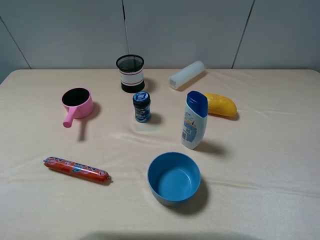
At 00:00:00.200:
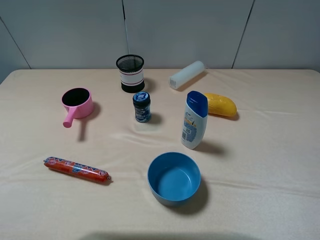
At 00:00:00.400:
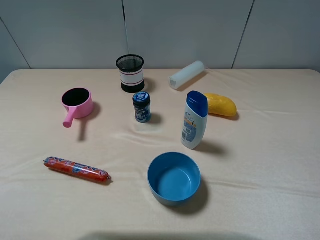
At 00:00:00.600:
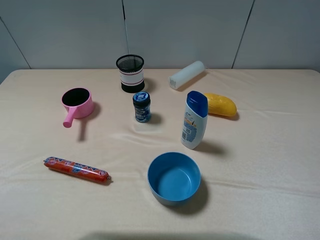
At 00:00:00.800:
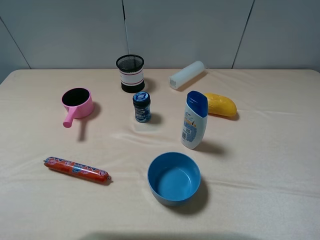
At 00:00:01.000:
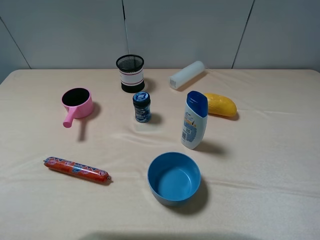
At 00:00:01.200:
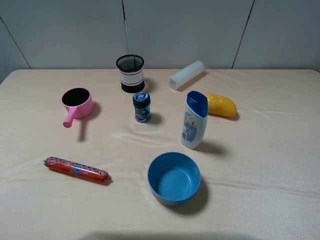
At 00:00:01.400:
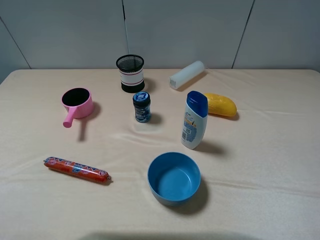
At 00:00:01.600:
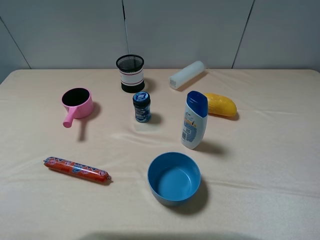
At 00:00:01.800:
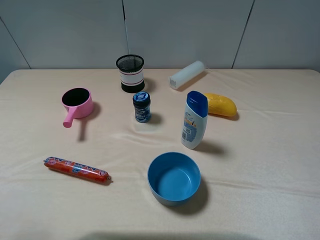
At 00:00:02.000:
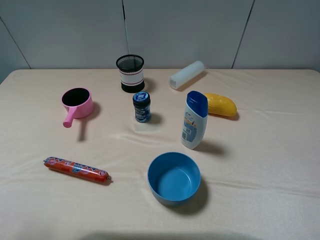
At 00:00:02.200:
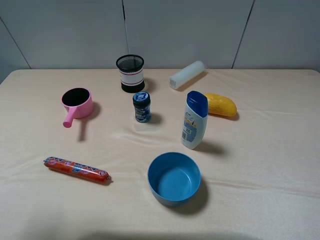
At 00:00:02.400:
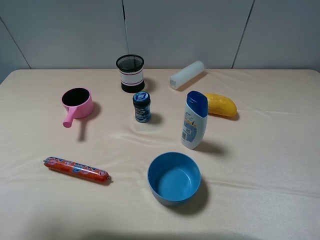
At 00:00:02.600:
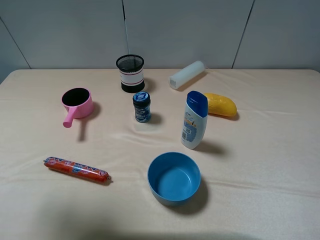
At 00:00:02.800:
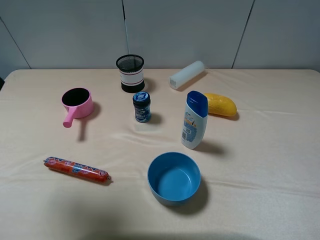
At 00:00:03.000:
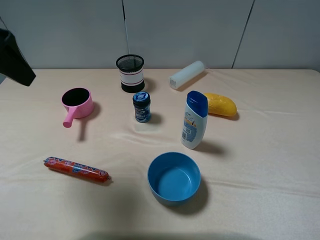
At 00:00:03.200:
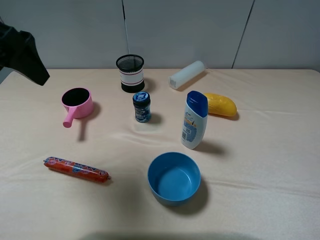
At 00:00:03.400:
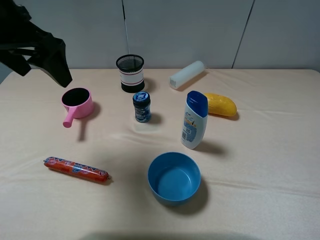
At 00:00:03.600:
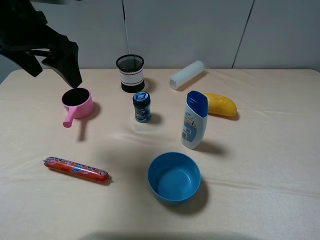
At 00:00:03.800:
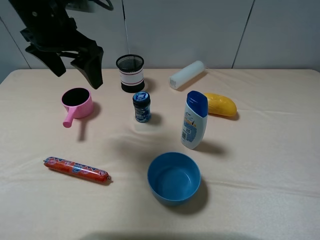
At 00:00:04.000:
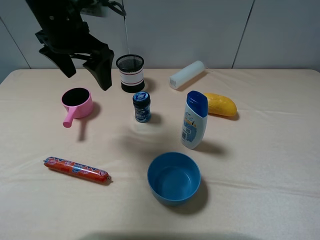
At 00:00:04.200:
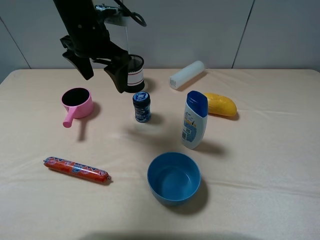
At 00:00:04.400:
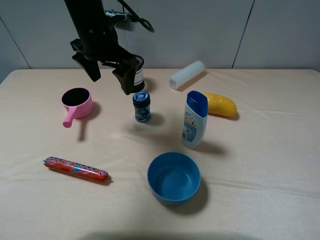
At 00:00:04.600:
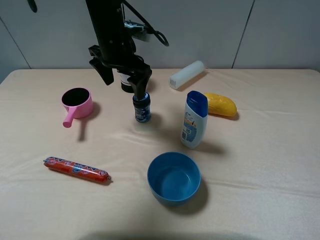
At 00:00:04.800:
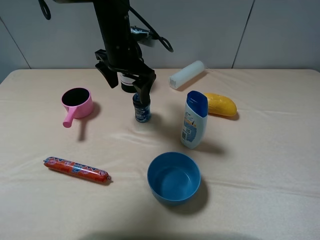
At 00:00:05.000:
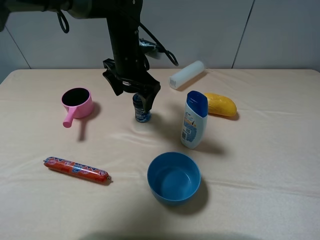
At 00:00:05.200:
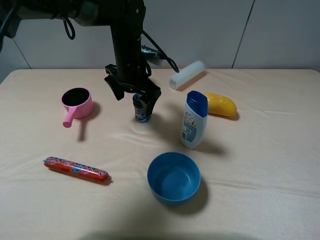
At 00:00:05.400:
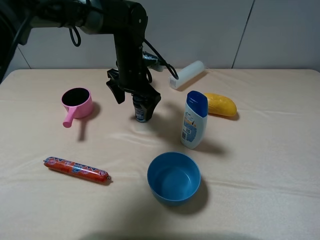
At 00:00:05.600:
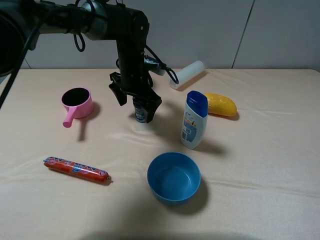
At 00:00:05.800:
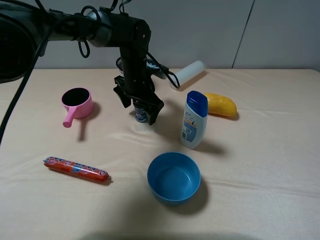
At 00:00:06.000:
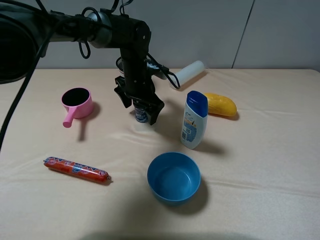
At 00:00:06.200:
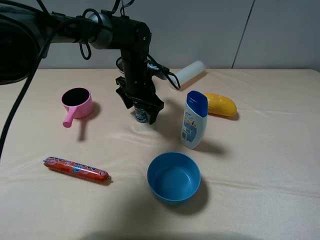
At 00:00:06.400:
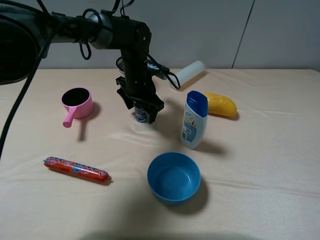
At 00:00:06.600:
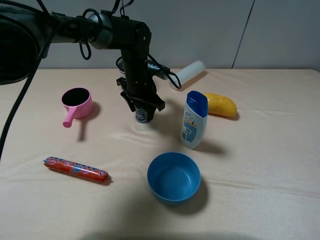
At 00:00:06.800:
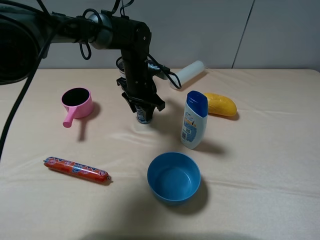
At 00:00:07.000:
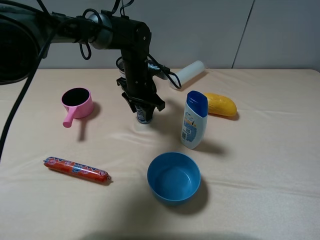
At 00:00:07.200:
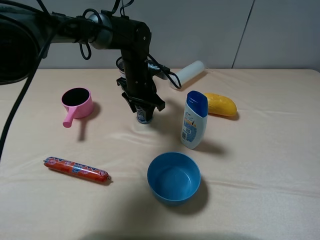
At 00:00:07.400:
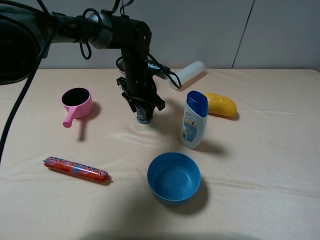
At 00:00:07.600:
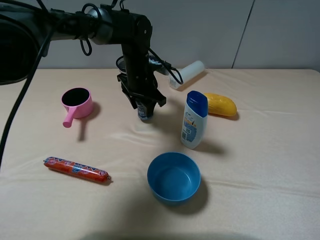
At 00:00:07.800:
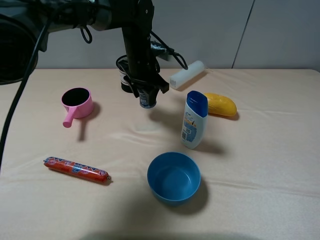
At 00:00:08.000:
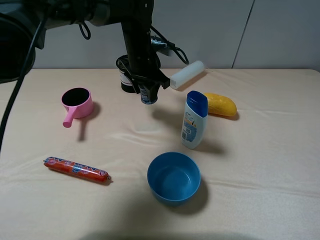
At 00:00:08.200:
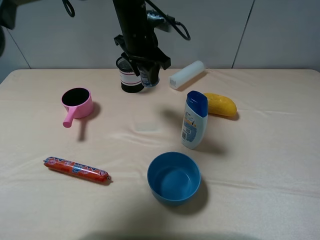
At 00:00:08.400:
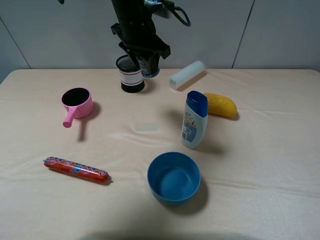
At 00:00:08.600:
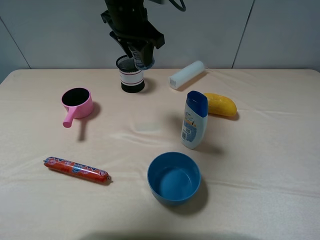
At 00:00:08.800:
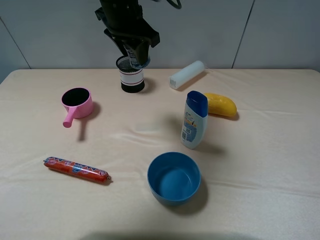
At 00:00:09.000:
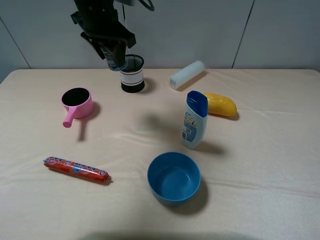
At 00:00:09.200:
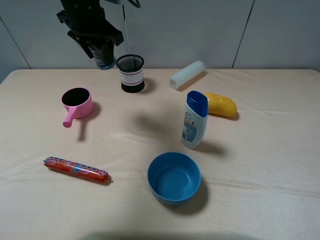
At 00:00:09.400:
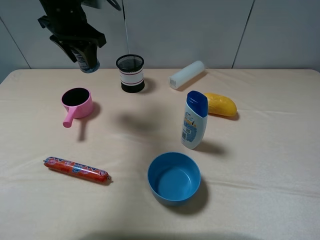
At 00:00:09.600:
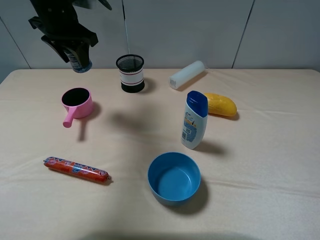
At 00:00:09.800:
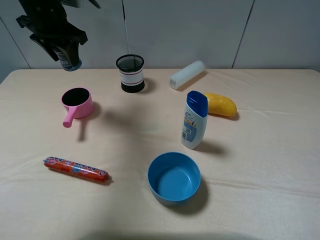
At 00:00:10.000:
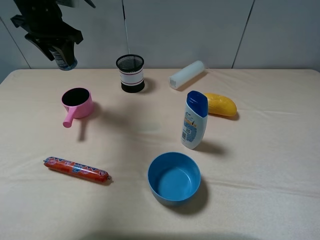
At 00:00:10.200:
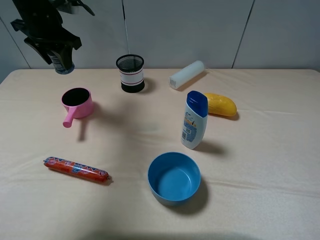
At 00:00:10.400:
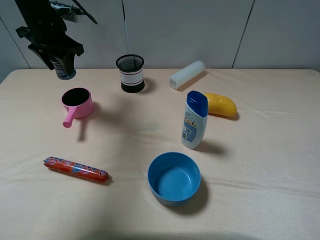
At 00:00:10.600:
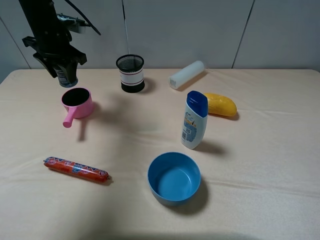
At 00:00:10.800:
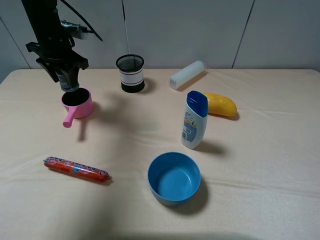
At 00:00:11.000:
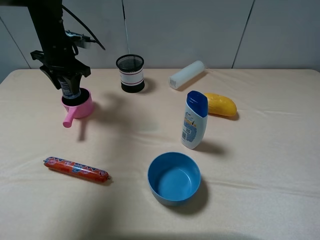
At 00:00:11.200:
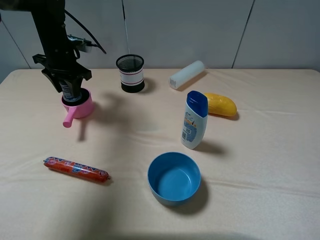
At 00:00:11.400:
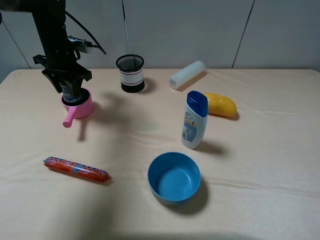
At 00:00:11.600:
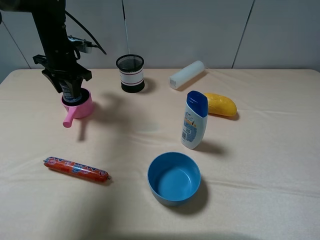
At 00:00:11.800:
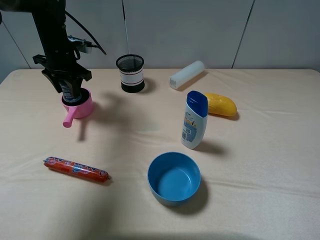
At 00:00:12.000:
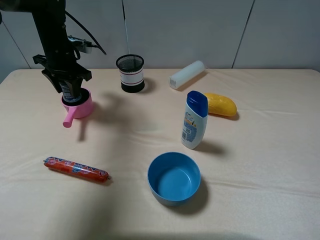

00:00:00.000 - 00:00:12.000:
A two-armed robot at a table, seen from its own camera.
Task of the whole recording: pick up an item with a gripper and place it in a random container on the table.
Step, 00:00:00.000 - 00:00:07.200: Grasp the round chewing gum with the left gripper.
00:00:01.600 - 00:00:03.000: The left gripper is displaced forward by approximately 20 cm.
00:00:03.000 - 00:00:04.400: The left gripper is displaced forward, to the right and downward by roughly 25 cm.
00:00:04.400 - 00:00:06.000: The left gripper moves downward and to the right, approximately 15 cm.
00:00:06.000 - 00:00:07.600: The left gripper closes up.
00:00:07.600 - 00:00:09.000: The left gripper is displaced upward and to the left by roughly 15 cm.
00:00:09.000 - 00:00:10.400: The left gripper goes roughly 10 cm to the left.
00:00:10.400 - 00:00:12.000: The left gripper travels downward by about 5 cm.

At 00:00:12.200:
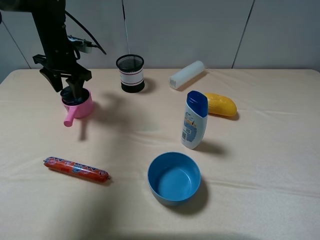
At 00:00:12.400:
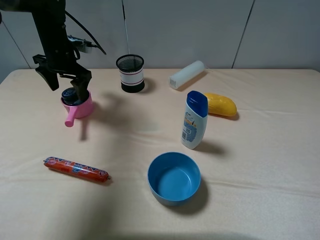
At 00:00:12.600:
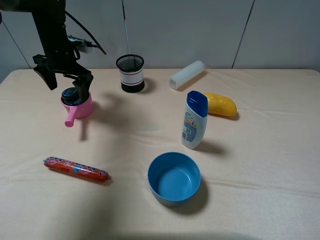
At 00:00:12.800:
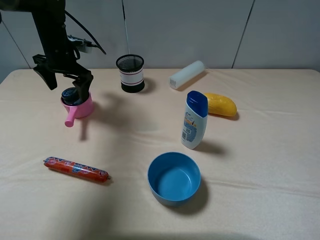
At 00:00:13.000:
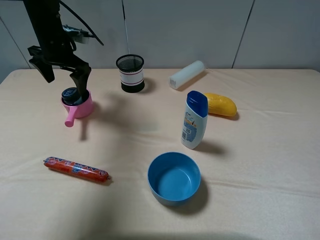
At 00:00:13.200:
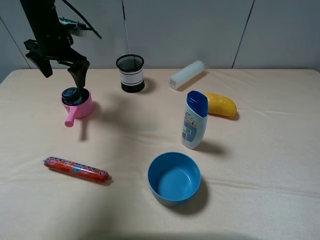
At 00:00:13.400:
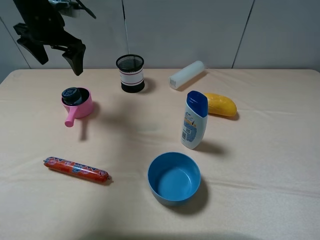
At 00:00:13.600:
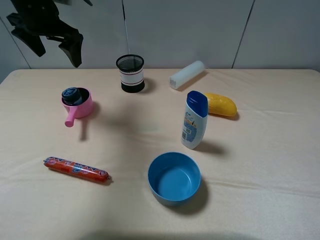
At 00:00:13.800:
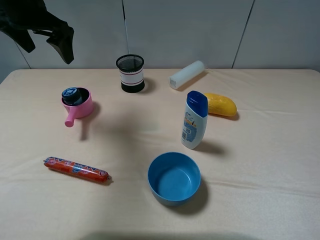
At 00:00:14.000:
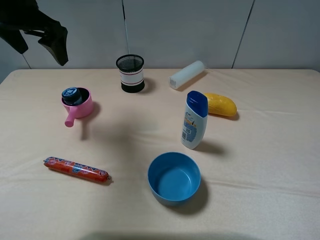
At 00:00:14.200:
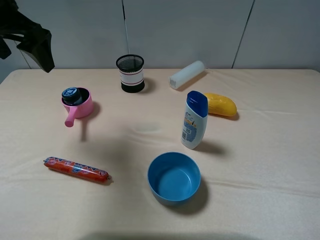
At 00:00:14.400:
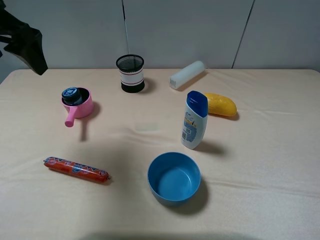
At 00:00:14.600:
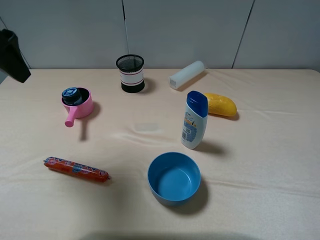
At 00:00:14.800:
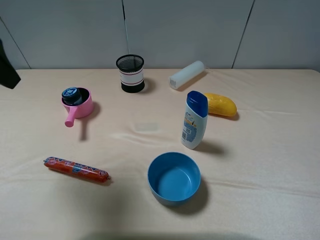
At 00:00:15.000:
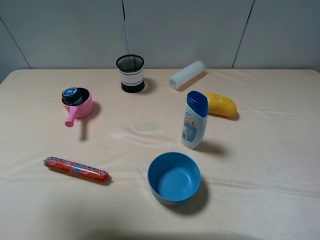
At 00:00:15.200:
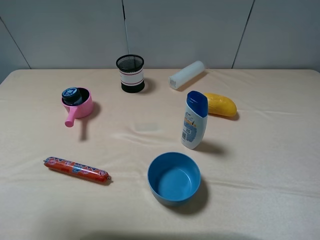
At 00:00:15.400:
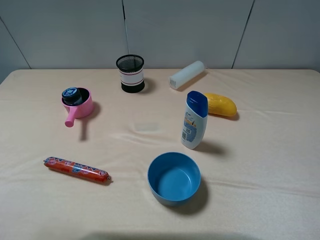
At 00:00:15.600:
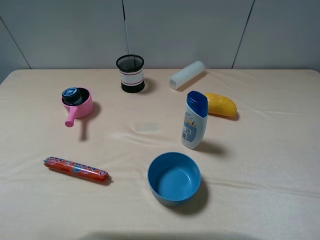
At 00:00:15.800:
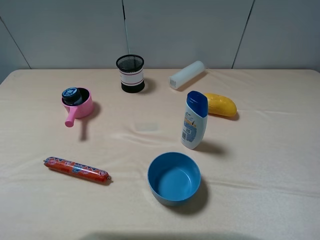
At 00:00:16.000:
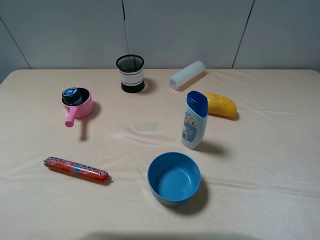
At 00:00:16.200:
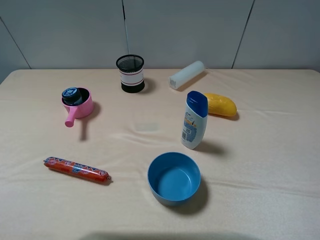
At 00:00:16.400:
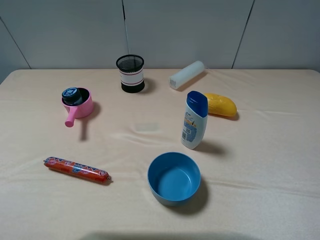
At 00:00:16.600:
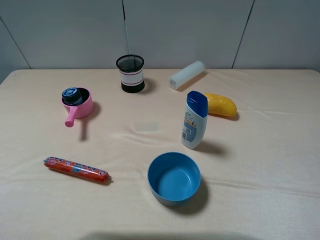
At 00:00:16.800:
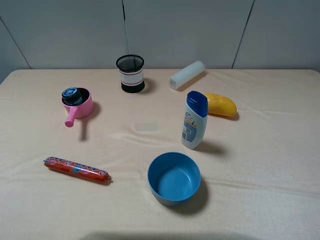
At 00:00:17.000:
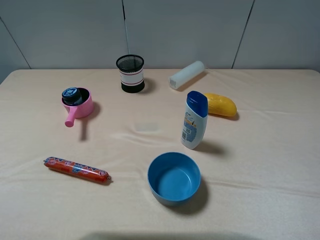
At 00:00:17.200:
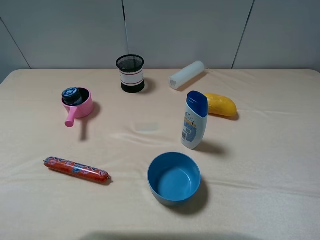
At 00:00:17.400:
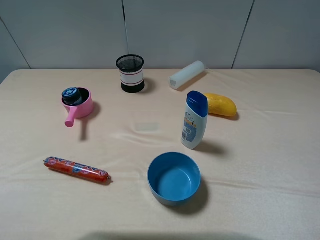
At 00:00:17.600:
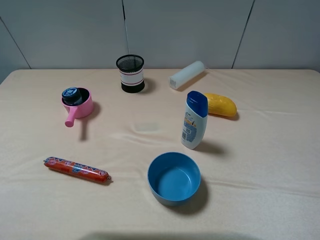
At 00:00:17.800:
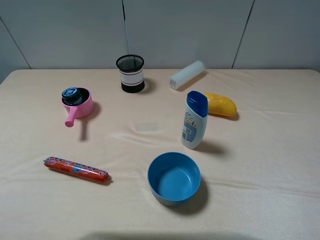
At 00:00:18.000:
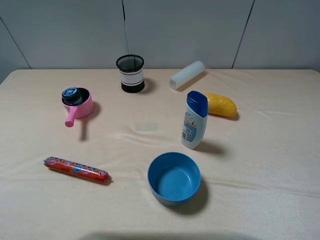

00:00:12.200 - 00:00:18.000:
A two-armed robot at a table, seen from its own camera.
Task of the whole recording: pick up an item with a gripper and place it in a random container on the table.
00:00:12.200 - 00:00:13.600: The left gripper is displaced upward by about 10 cm, and opens its fingers.
00:00:13.600 - 00:00:15.000: The left gripper is displaced backward by approximately 25 cm.
00:00:15.000 - 00:00:16.600: The left gripper moves backward and downward, about 20 cm.
00:00:16.600 - 00:00:18.000: The two grippers keep their place.
